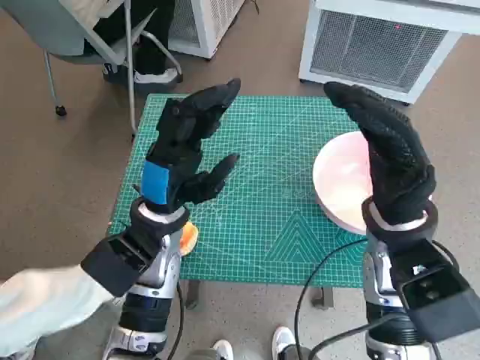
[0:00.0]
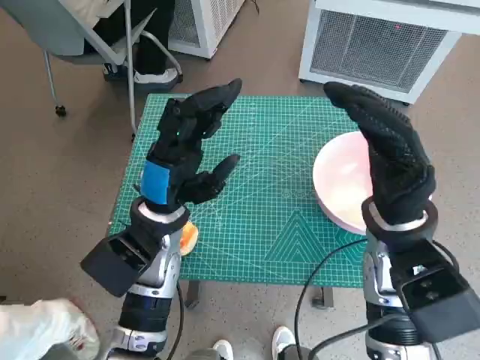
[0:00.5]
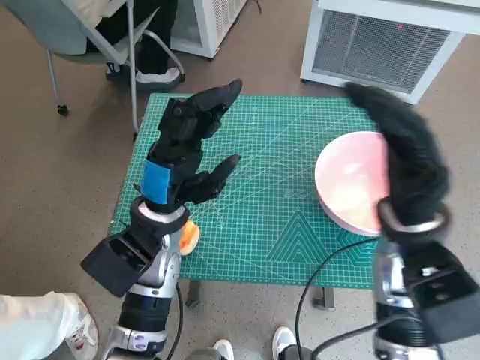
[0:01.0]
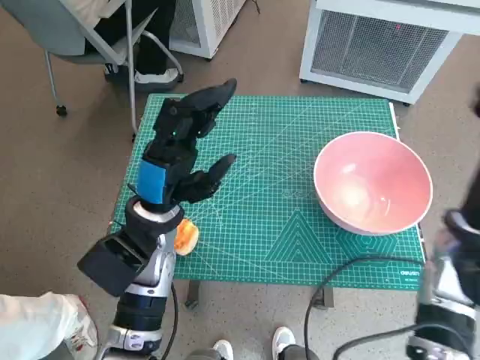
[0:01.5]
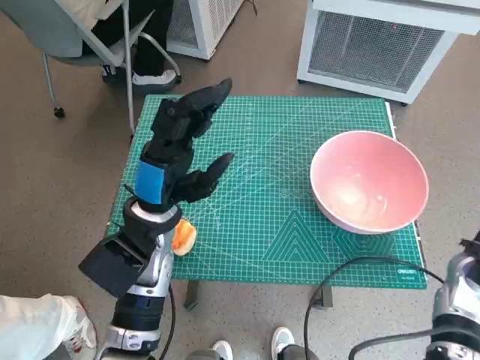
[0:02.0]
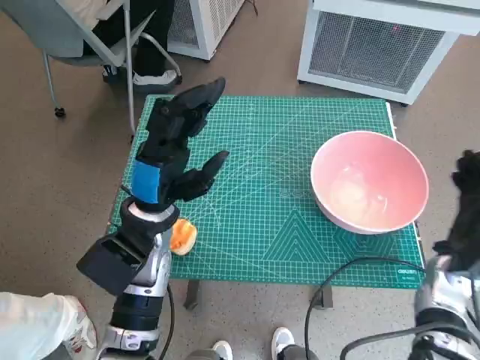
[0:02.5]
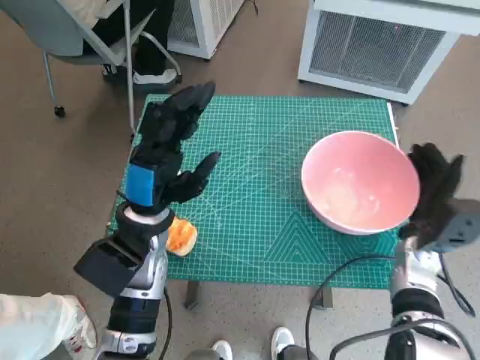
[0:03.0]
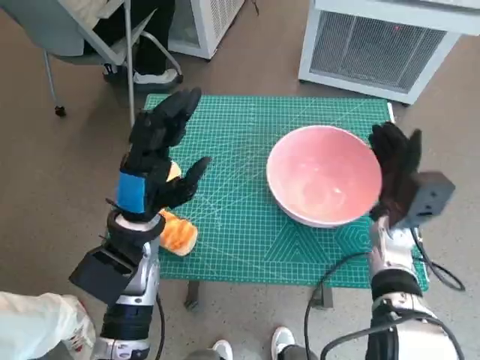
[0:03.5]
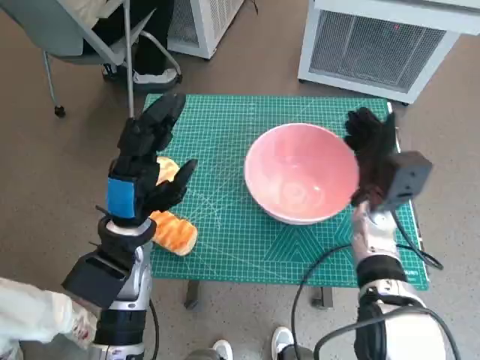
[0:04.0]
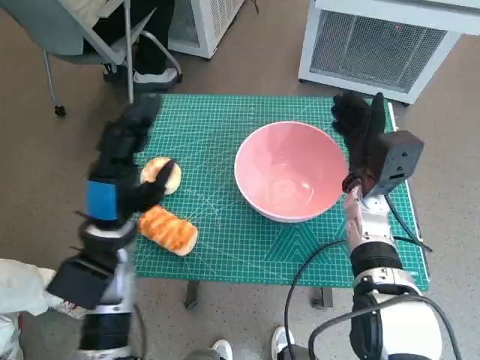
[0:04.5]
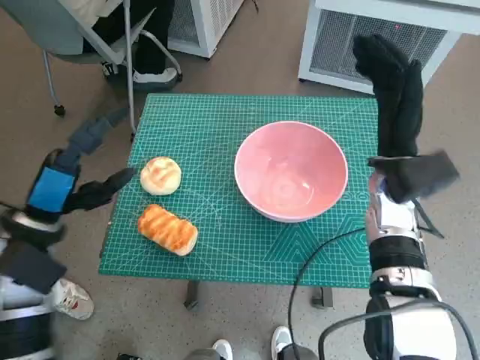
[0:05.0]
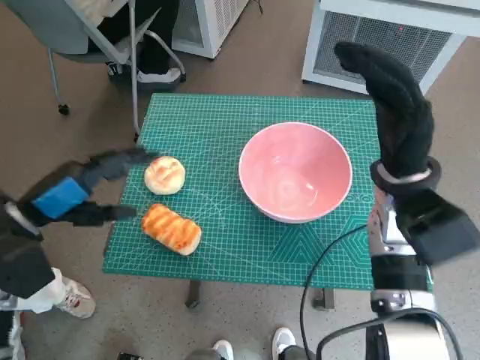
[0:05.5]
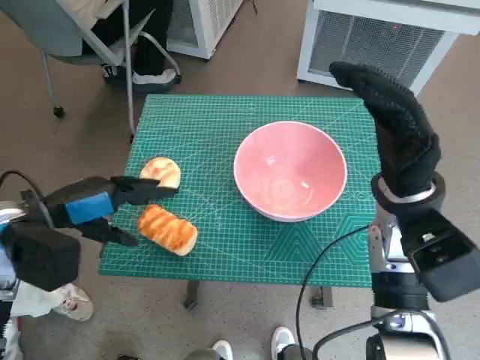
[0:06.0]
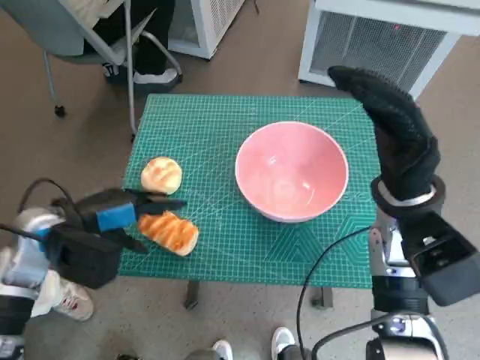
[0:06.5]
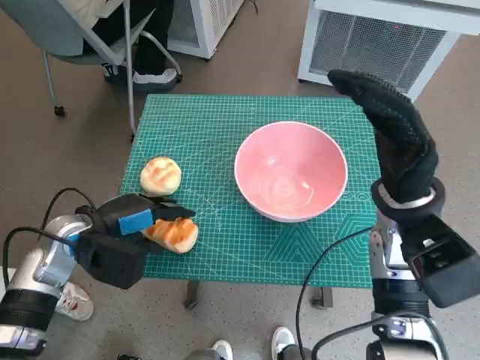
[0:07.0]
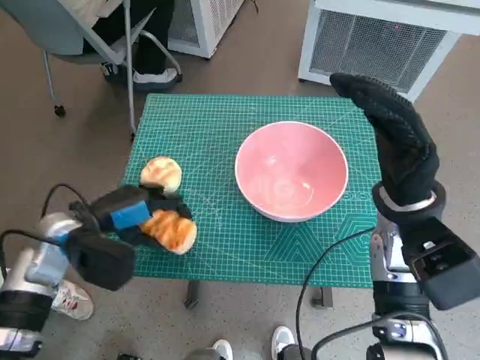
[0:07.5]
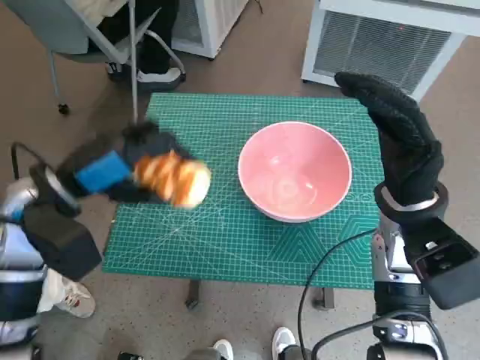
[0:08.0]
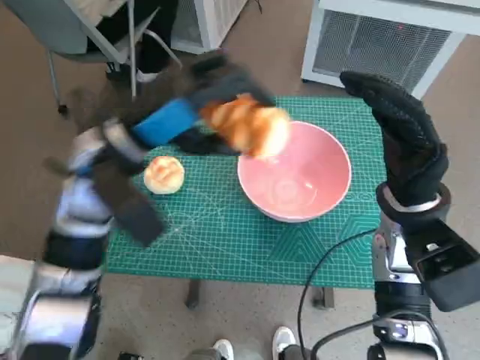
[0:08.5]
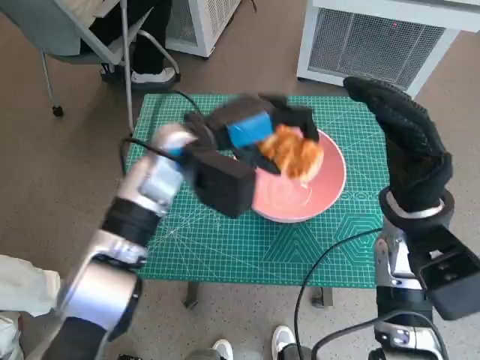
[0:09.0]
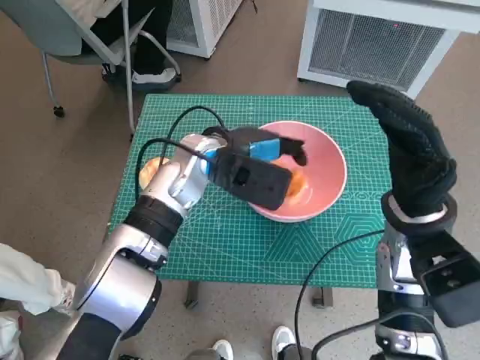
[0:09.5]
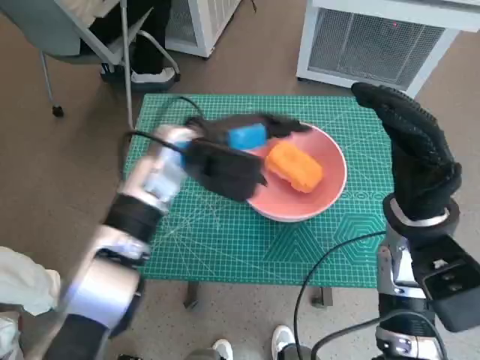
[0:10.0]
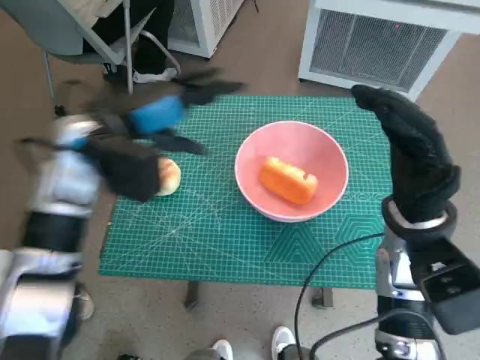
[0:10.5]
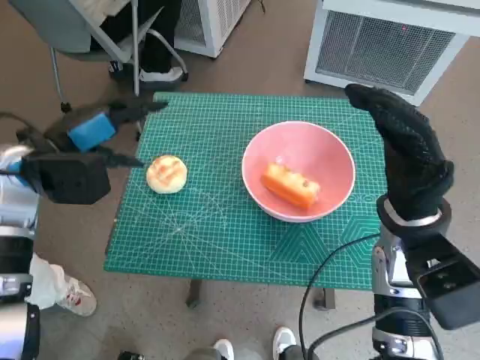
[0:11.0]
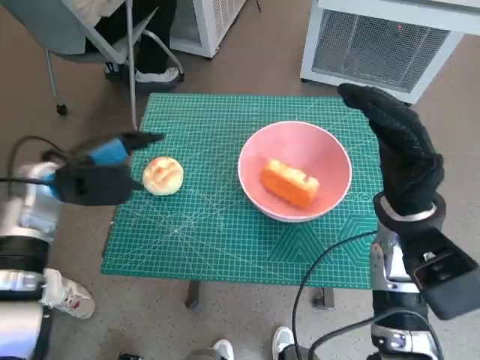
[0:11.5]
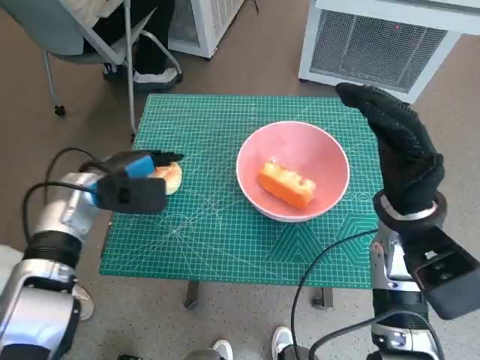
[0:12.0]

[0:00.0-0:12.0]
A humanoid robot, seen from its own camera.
Task of the whole recording: Push the bowl to the center of the table and put the bread into the bowl.
Step, 0:00.0 to 0:04.5: Move the pink bowl to the center of table with right hand.
Step, 0:05.0 to 0:07.0: Grasp the long bread with left hand.
Step, 0:07.5 to 0:10.0: Place the long bread in pink bowl with left hand.
0:02.0 to 0:04.0: The right hand is displaced to the left and forward by some 15 cm.
0:04.0 to 0:06.0: The left hand goes about 15 cm to the left and upward; the right hand is displaced upward by some 10 cm.
0:06.0 to 0:08.0: The left hand travels downward and back again, roughly 5 cm each way.
0:08.0 to 0:10.0: The left hand moves to the right and forward, about 20 cm.
0:10.0 to 0:12.0: The left hand shifts approximately 15 cm to the left.

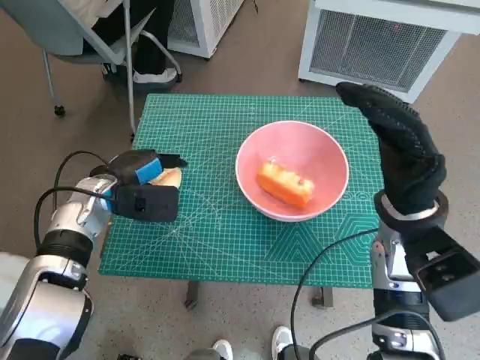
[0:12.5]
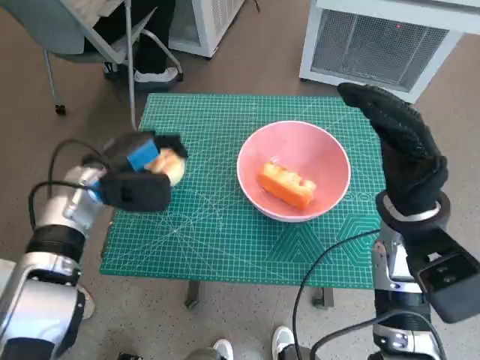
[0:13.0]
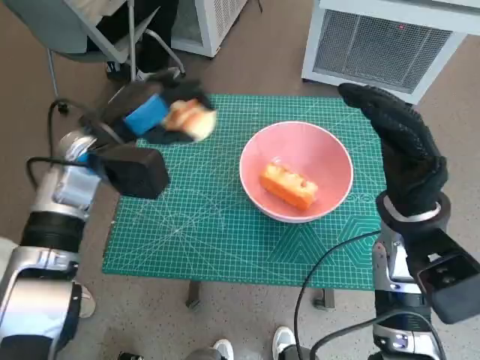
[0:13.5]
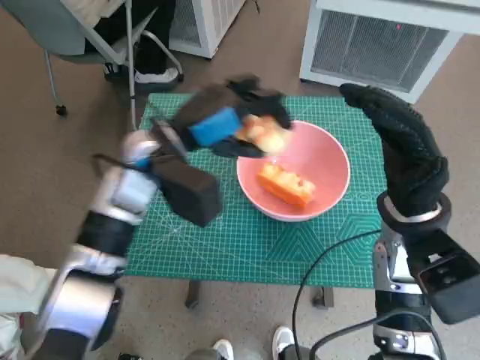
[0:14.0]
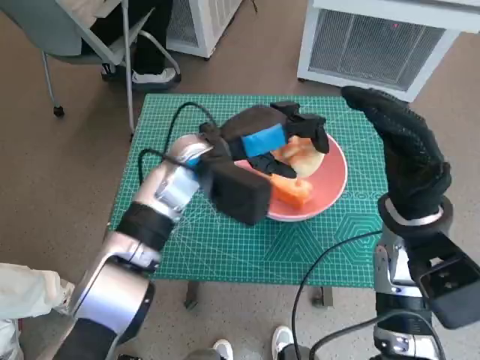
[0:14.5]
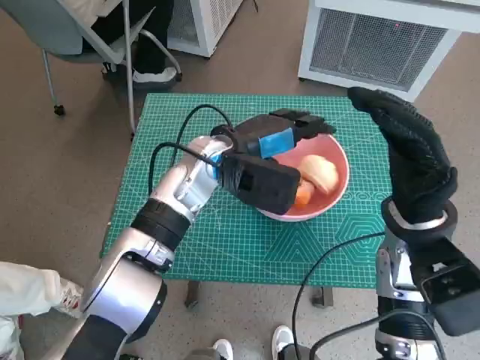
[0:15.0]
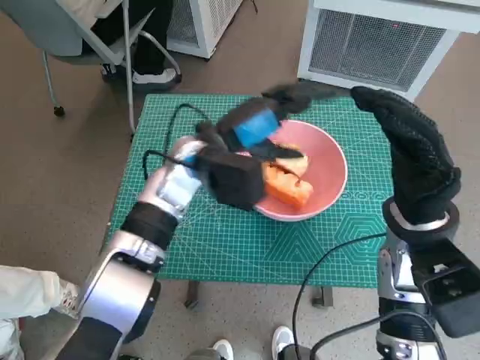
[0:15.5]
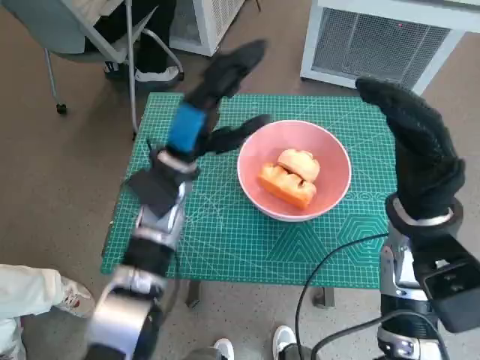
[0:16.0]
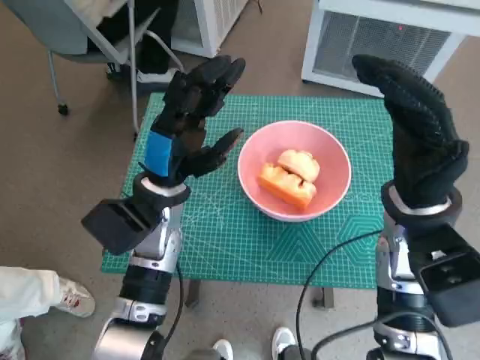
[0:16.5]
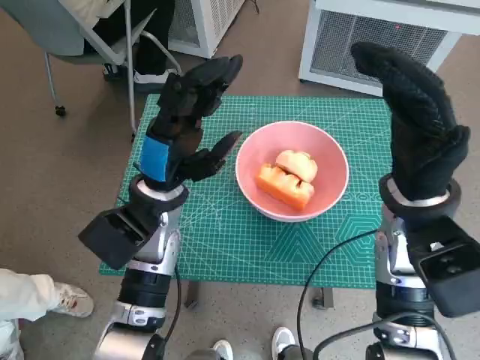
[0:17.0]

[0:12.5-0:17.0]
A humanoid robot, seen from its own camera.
Task of the whole recording: Push the bowl to the center of the table and put the bread into the bowl.
Step, 0:13.0 to 0:15.0: Place the round bread in pink bowl with left hand.
0:12.5 to 0:14.5: The left hand shifts some 20 cm to the right and upward.
0:14.5 to 0:17.0: The left hand goes about 5 cm to the left and backward.

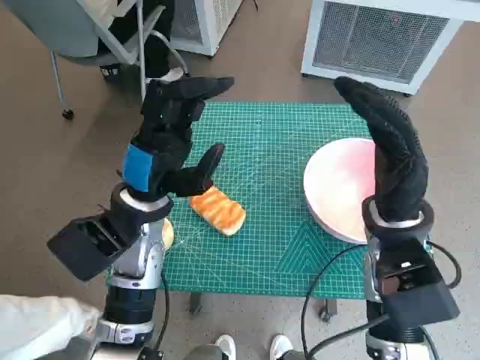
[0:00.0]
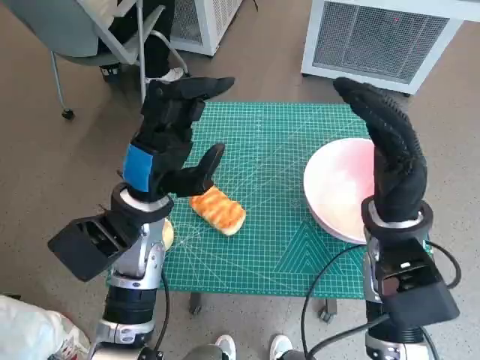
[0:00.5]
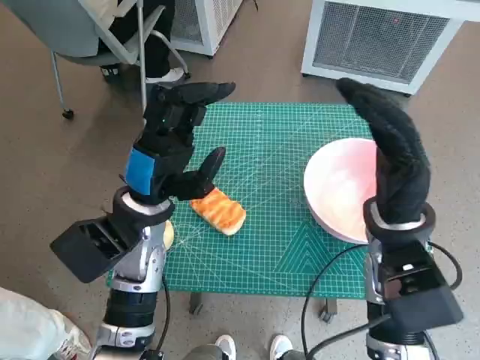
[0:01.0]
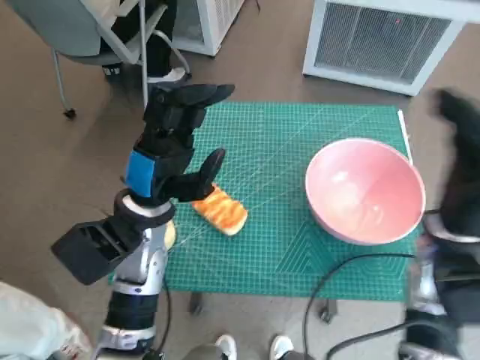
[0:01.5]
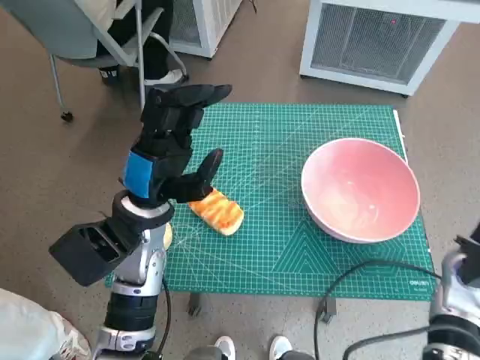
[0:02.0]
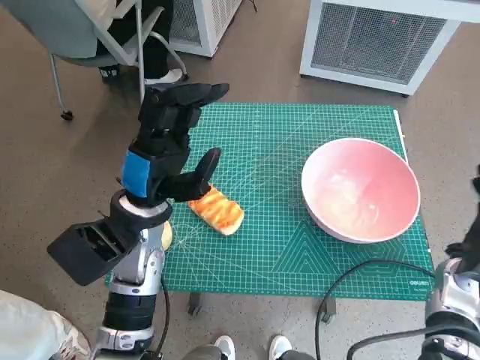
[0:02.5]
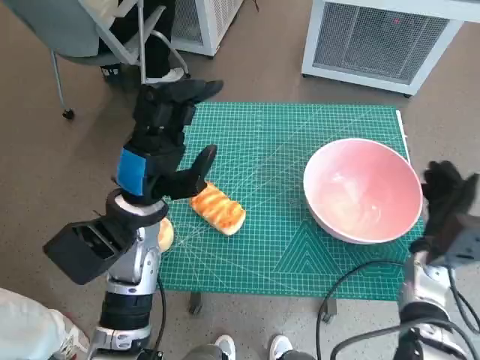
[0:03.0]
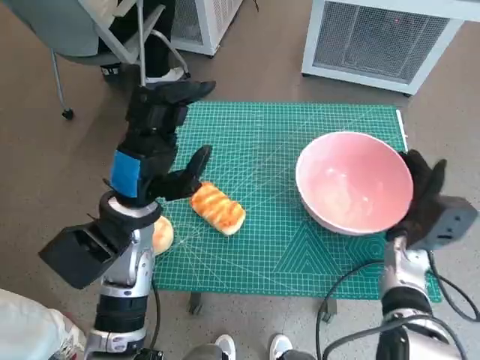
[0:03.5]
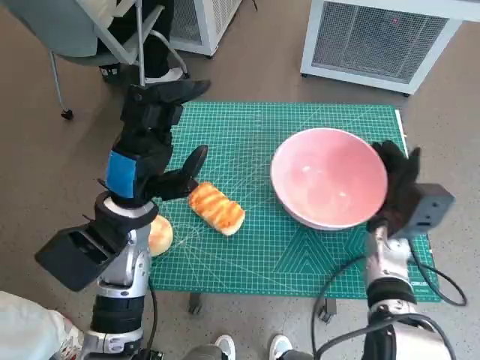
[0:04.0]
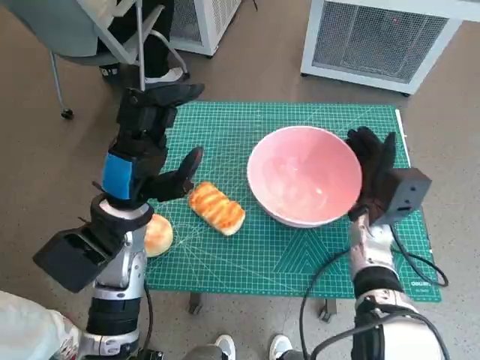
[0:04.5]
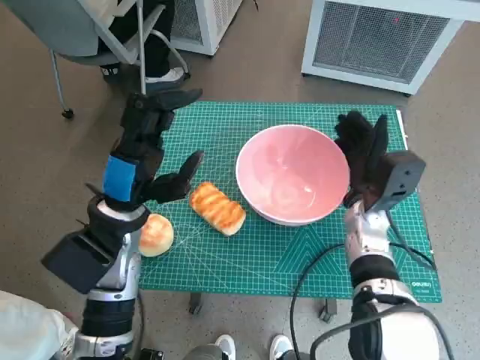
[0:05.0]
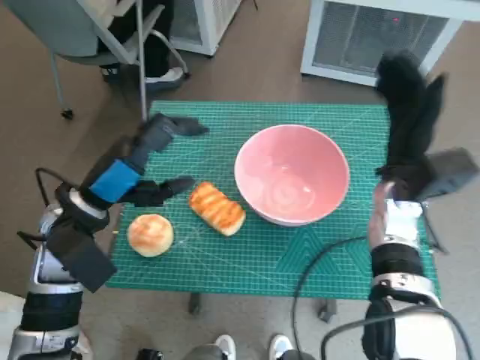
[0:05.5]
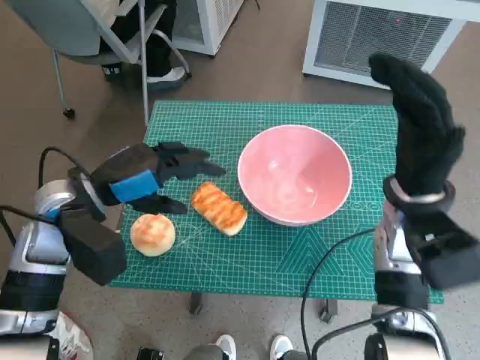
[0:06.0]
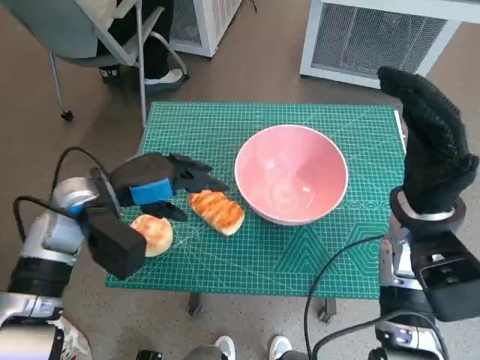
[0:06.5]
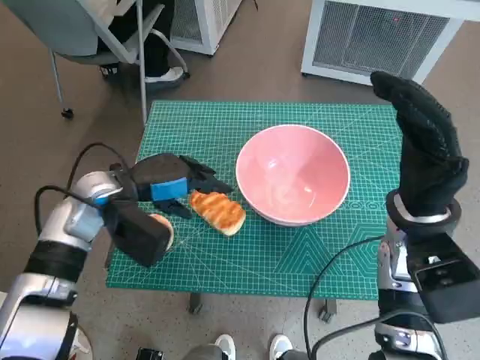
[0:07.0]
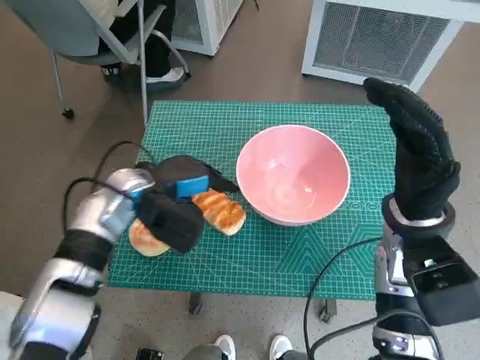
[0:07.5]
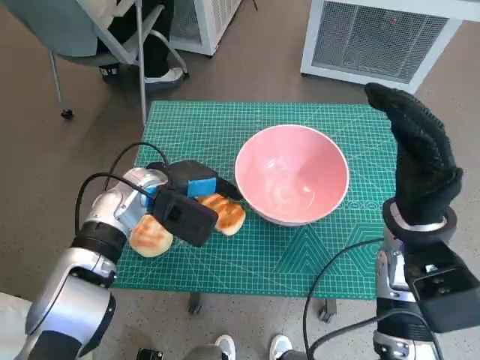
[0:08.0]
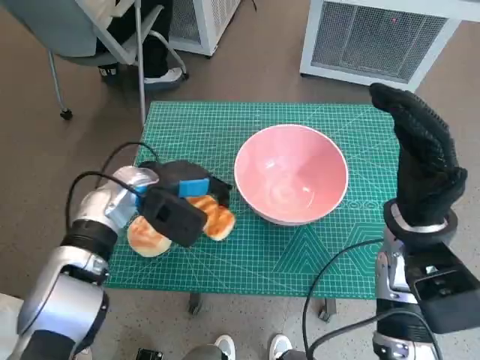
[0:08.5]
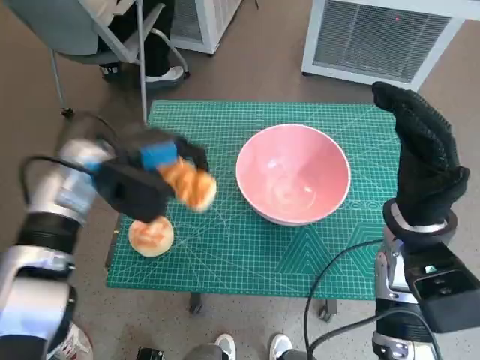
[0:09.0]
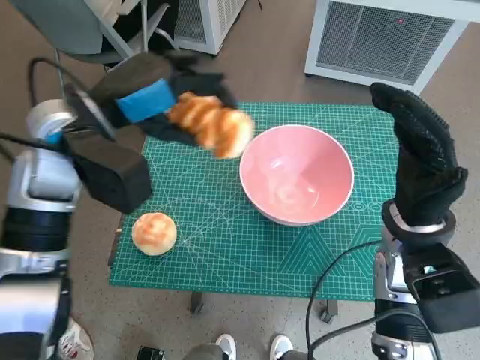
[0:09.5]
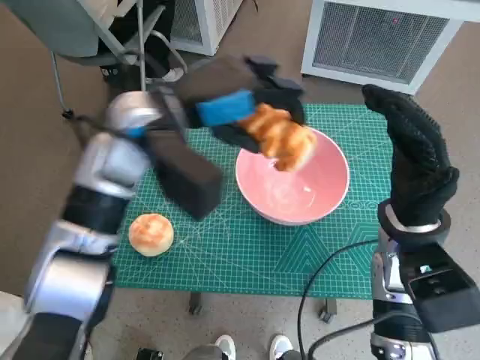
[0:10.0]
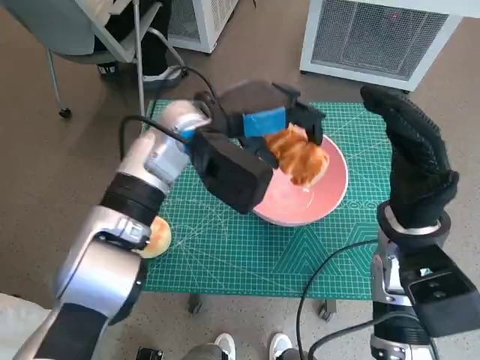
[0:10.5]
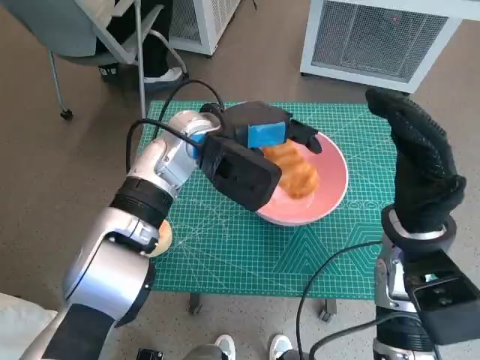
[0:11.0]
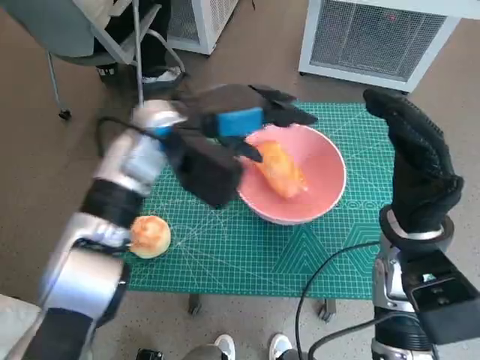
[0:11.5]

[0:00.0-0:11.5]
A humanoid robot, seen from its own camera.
Task of the whole recording: Push the bowl to the center of the table and put the bread into the bowl.
Step, 0:00.0 to 0:05.0: Move the pink bowl to the center of table with right hand.
Step, 0:06.0 to 0:08.0: Grasp the long bread with left hand.
0:02.0 to 0:04.0: The right hand goes some 10 cm to the left.
0:04.0 to 0:06.0: The right hand moves upward, approximately 10 cm. The left hand moves to the left, roughly 5 cm.
0:06.0 to 0:07.5: The left hand is displaced forward by about 5 cm.
0:07.5 to 0:09.5: The left hand heads upward, covering some 15 cm.
0:09.5 to 0:11.5: The left hand heads to the right, covering some 10 cm.
